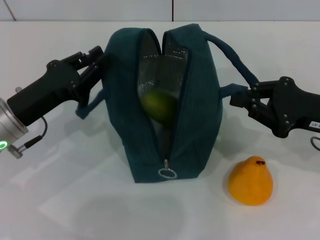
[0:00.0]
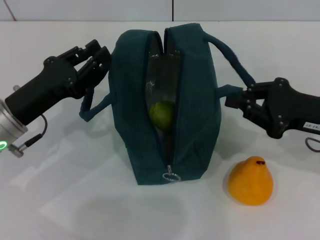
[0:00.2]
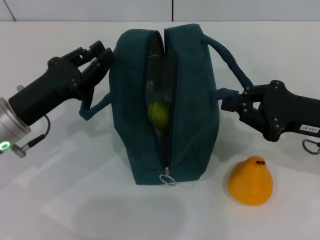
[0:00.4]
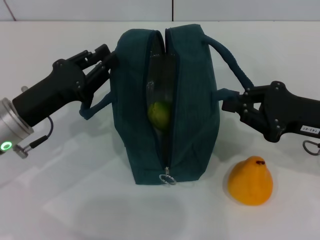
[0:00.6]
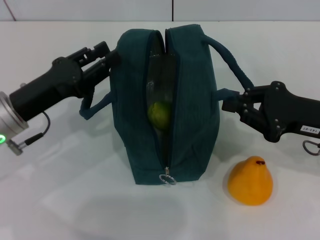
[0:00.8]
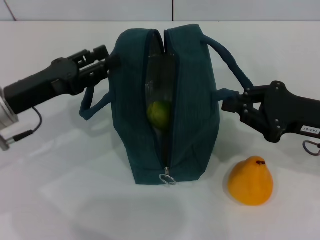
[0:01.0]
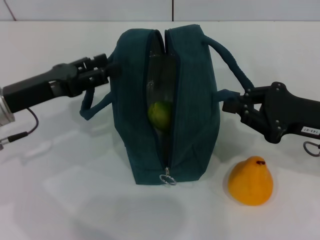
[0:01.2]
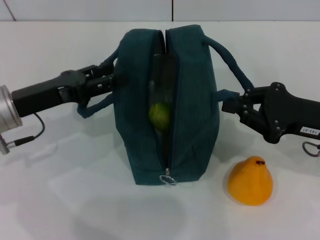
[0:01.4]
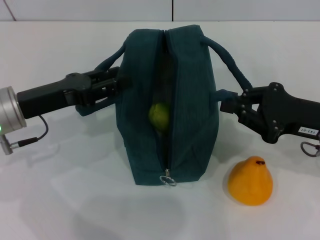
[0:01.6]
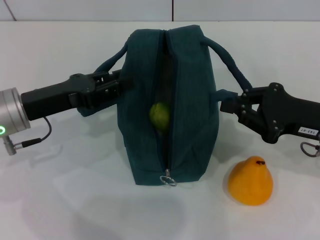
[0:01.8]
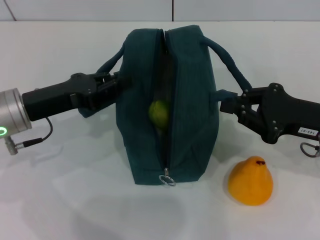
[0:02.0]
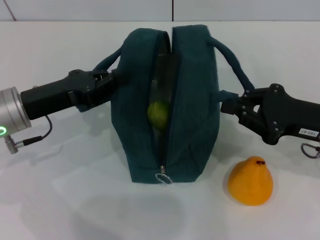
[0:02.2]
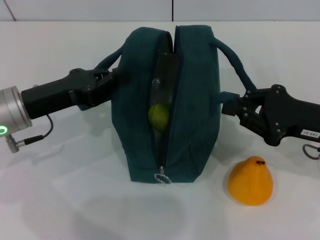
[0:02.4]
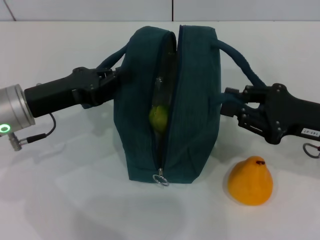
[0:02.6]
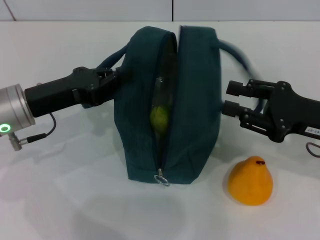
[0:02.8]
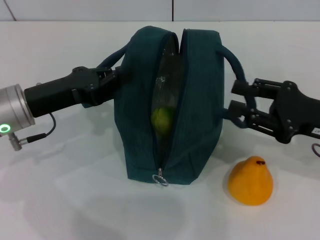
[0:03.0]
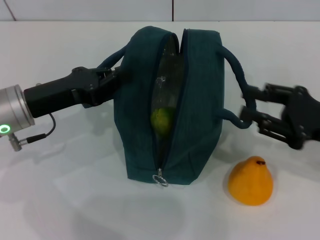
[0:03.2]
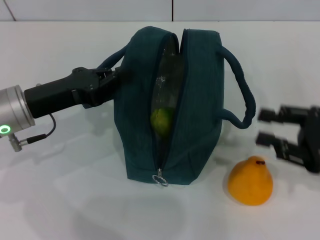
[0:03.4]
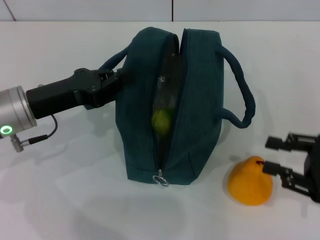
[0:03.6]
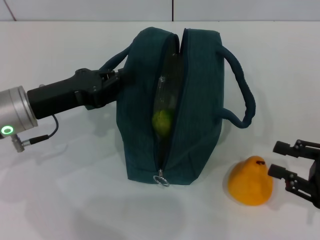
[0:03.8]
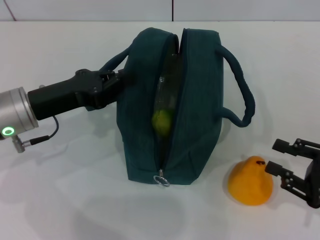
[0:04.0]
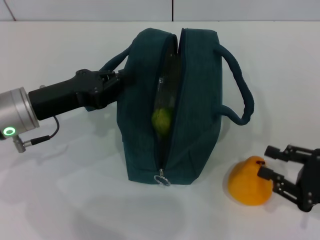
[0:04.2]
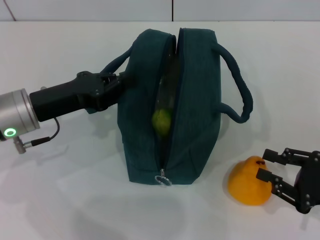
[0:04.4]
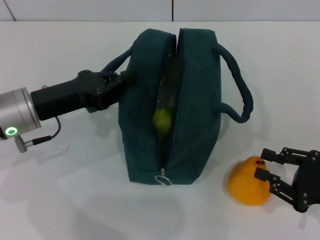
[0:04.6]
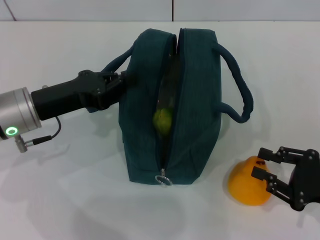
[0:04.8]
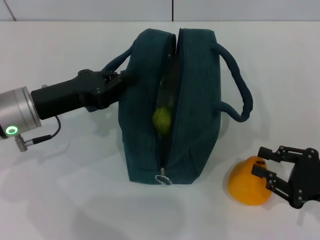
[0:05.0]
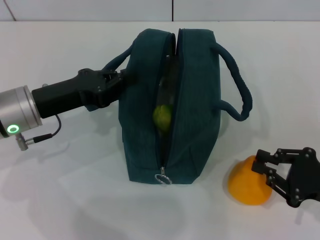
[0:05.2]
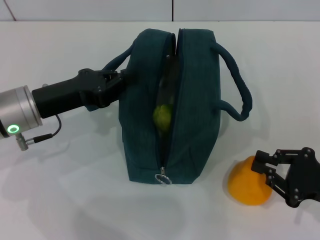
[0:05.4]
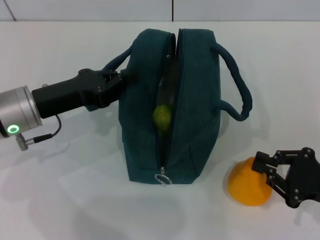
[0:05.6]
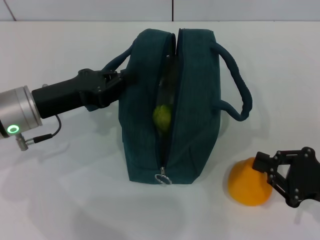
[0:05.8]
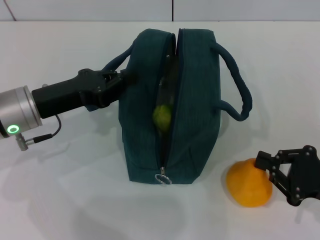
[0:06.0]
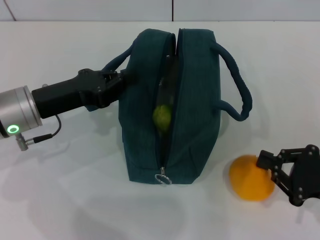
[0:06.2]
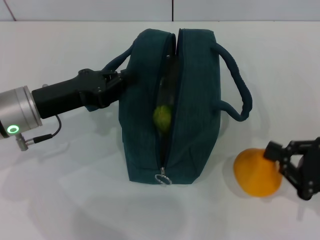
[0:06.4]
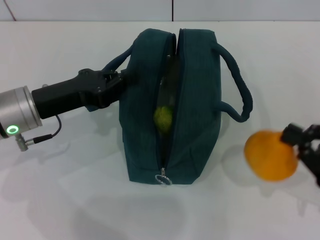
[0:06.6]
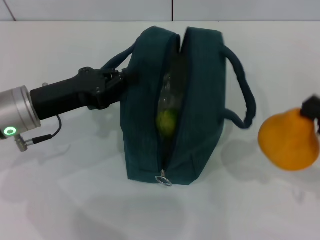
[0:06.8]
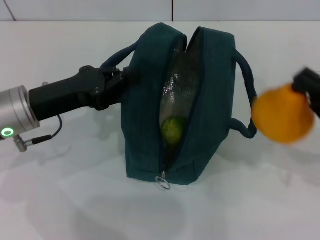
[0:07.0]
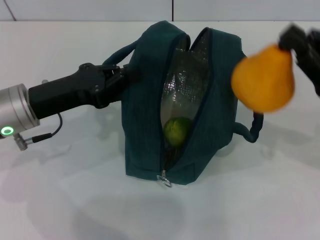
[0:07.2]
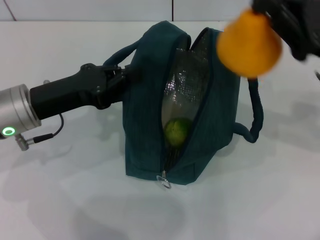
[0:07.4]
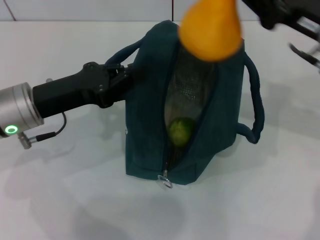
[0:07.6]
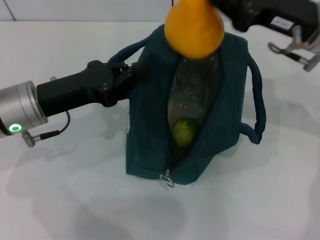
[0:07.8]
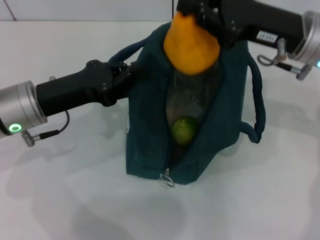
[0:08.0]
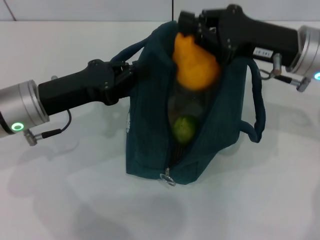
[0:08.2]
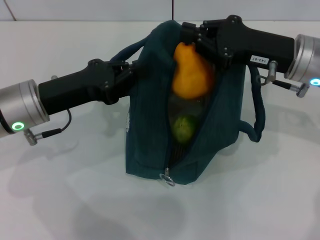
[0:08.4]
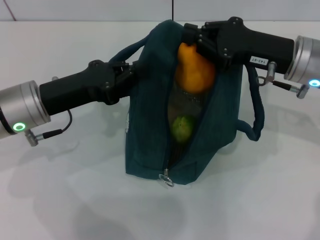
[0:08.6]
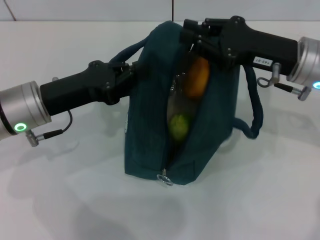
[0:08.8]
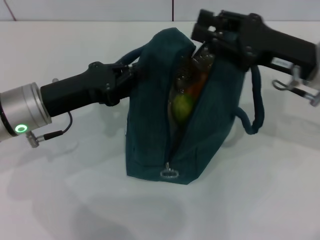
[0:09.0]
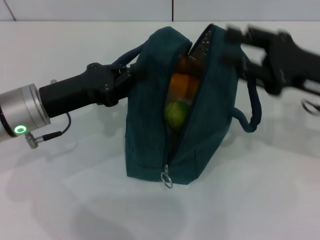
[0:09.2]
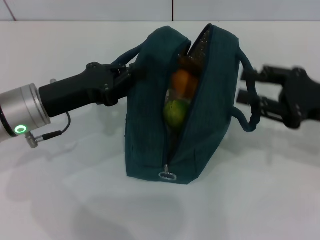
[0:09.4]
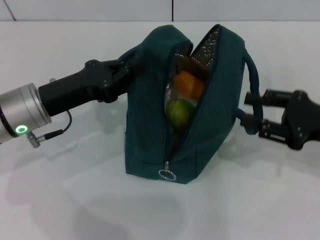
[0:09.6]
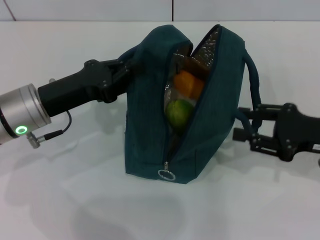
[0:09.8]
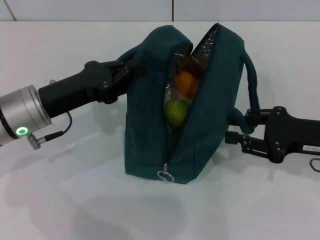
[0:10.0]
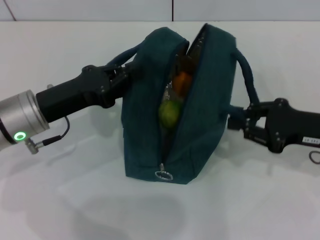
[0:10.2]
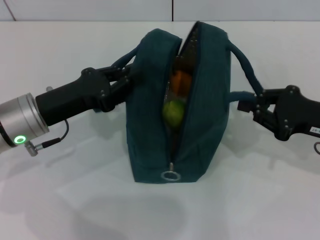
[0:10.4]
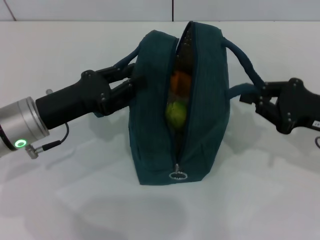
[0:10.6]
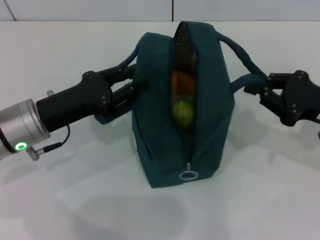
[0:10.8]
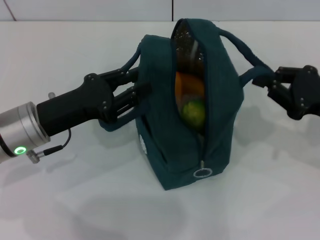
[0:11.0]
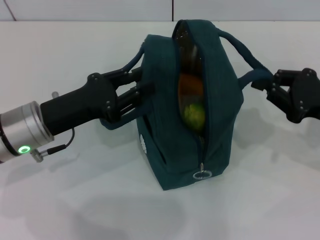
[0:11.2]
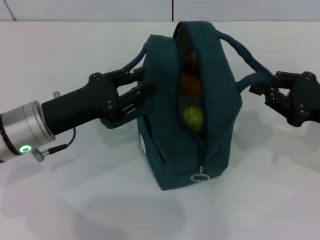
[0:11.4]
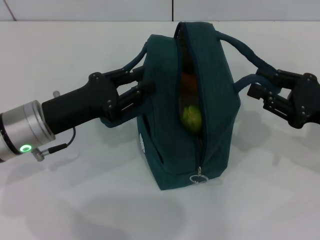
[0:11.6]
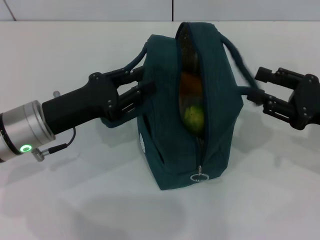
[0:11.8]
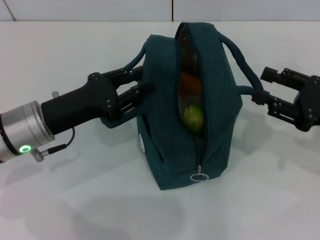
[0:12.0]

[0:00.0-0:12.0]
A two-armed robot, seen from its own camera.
Step, 0:00.0 to 0:05.6: Grab the pear with your right hand.
Step, 0:09.2 to 0:11.8: Hold the lunch bag with your right hand.
0:00.0 to 0:01.6: The left gripper opens.
0:01.6 to 0:03.0: The left gripper closes.
0:03.0 to 0:04.4: The right gripper goes roughly 10 cm backward and downward.
0:04.4 to 0:06.0: The right gripper closes its fingers.
0:06.0 to 0:07.6: The right gripper goes approximately 20 cm upward, forward and to the left.
0:07.6 to 0:09.0: There are only small adjustments of the grippers.
0:09.0 to 0:10.4: The right gripper heads to the right, downward and backward, covering some 10 cm.
0:10.4 to 0:12.0: The grippers make only small movements.

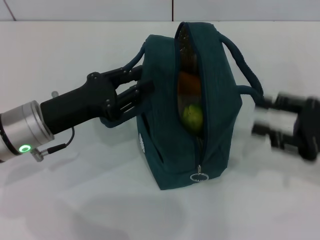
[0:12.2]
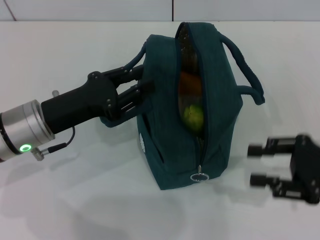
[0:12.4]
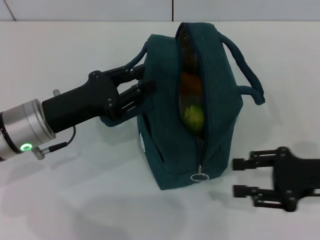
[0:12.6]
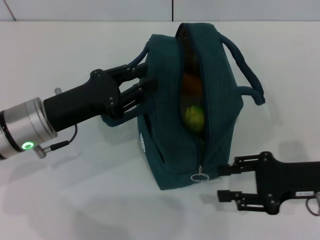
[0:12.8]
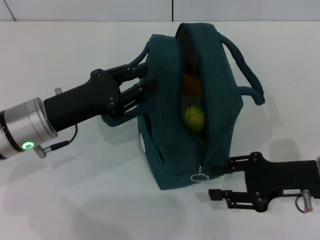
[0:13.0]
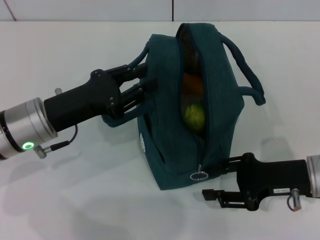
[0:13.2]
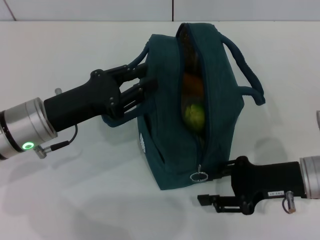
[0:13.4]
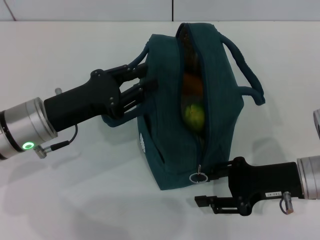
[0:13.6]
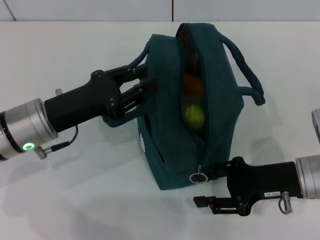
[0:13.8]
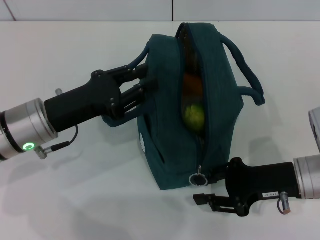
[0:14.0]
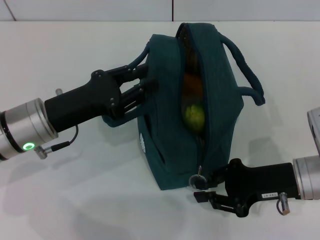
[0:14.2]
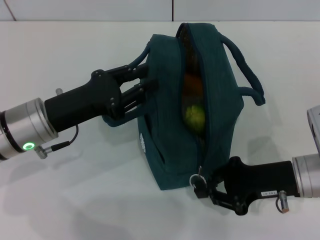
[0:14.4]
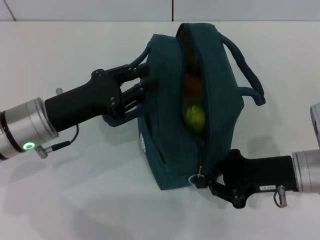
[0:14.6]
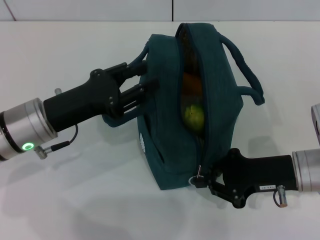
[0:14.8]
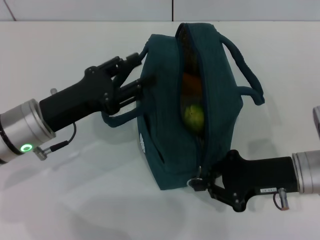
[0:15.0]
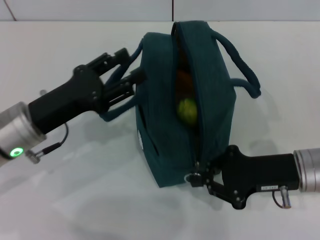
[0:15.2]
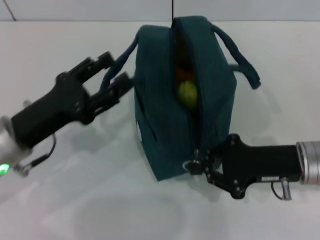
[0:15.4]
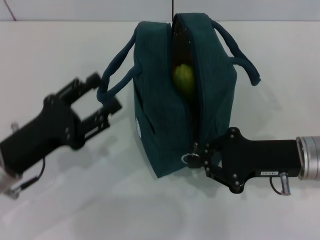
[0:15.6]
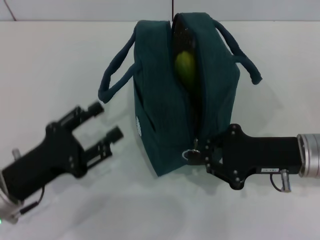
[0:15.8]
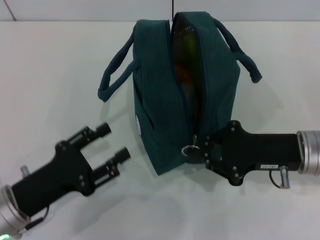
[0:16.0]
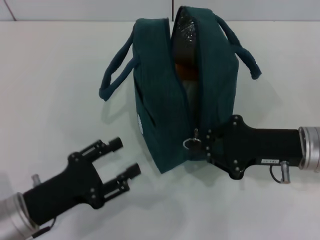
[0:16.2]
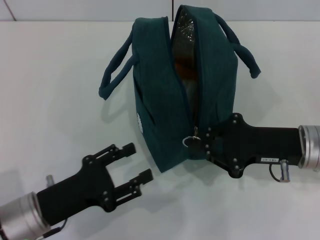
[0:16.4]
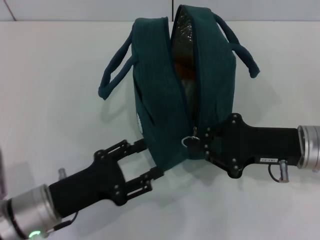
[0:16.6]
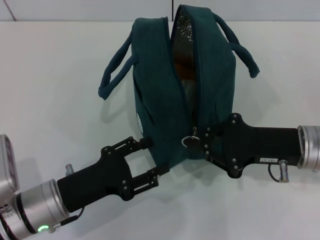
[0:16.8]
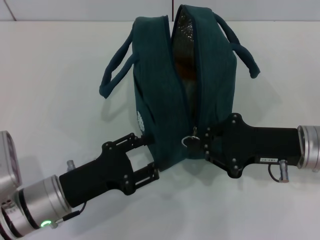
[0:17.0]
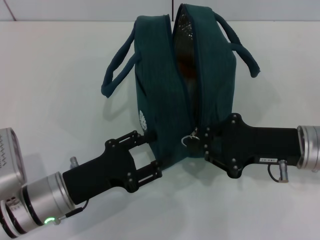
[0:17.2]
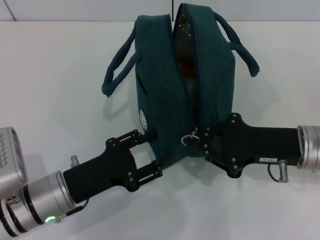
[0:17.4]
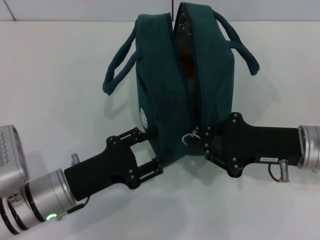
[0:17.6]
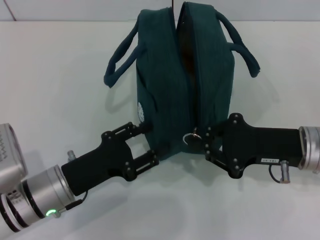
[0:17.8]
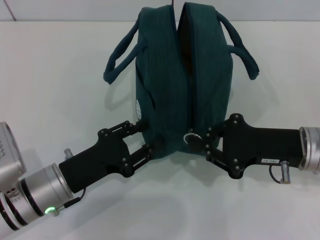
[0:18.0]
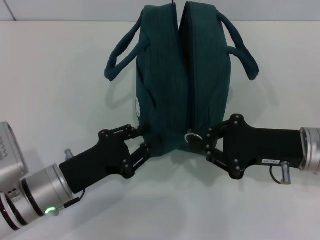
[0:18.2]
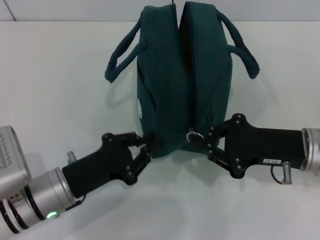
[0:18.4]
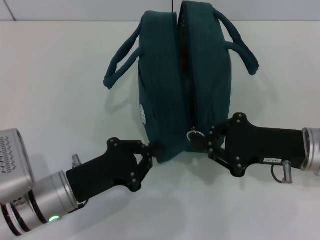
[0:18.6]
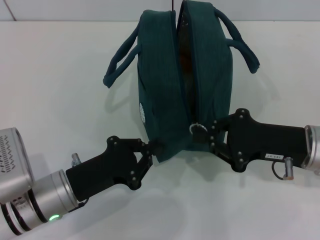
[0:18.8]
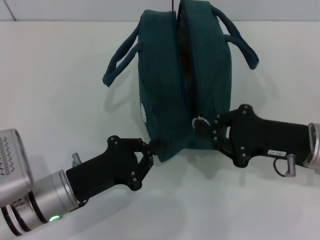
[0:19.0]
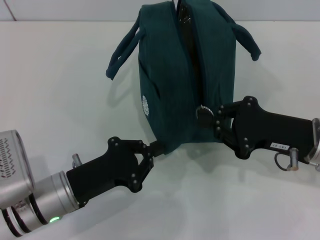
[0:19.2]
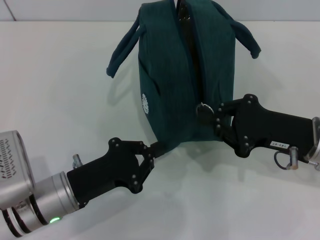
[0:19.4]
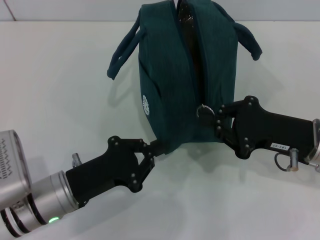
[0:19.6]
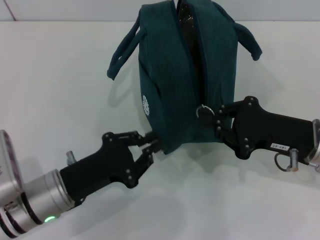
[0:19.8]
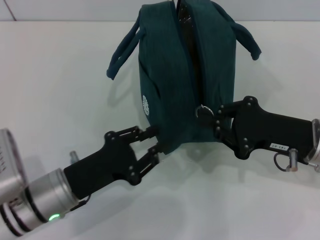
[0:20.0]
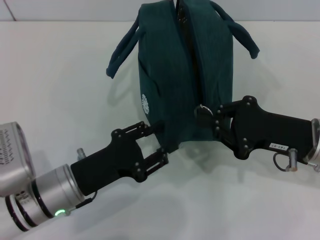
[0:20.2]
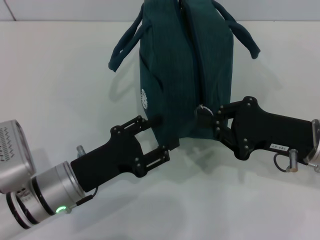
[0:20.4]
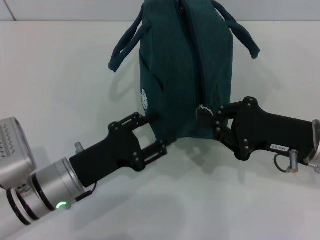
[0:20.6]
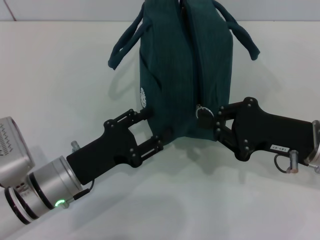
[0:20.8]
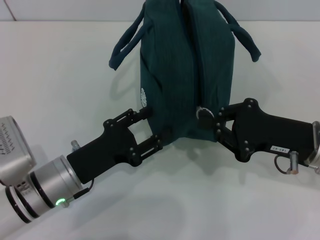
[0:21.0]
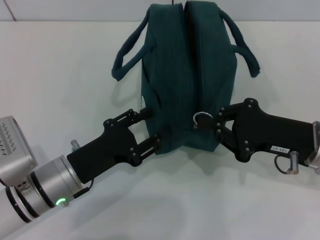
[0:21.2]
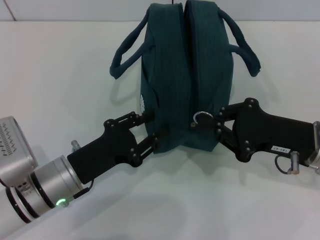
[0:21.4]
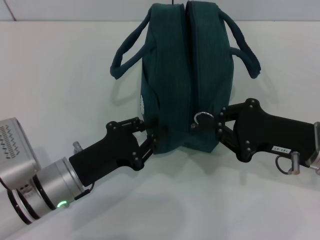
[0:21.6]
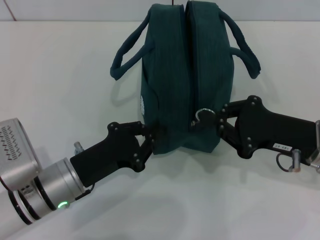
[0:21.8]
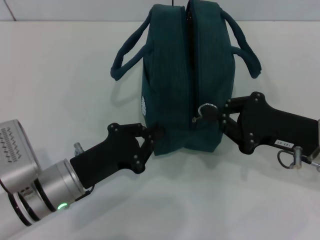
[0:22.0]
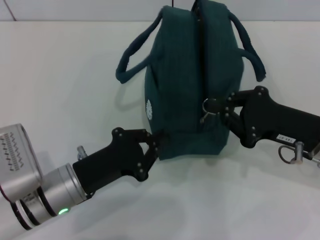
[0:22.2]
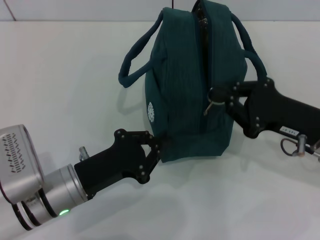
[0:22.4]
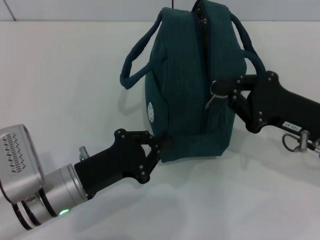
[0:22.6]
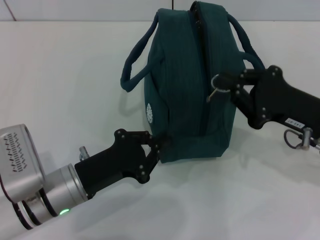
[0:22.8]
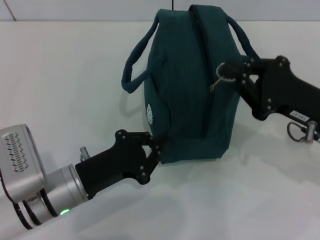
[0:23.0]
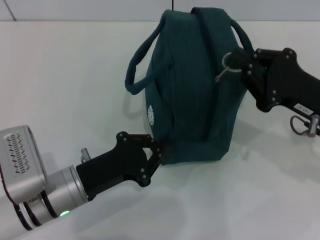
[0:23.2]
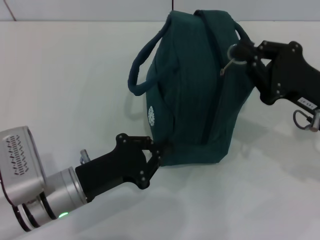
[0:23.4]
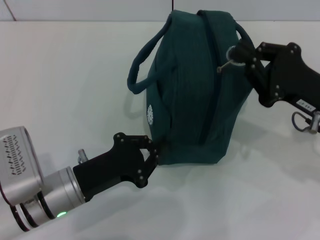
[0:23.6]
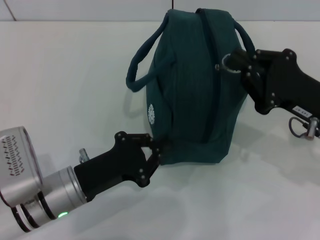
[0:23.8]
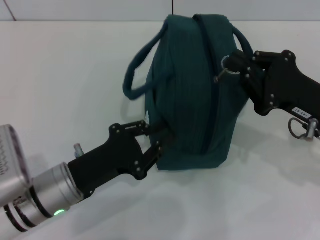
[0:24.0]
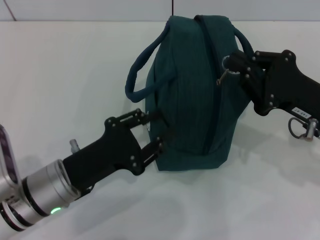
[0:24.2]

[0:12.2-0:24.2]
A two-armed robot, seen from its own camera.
Step, 0:12.2 to 0:15.2: Hold the lunch bag with your left hand.
0:12.2 to 0:13.8: The right gripper moves to the left, roughly 10 cm.
0:13.8 to 0:15.2: The right gripper closes.
0:15.2 to 0:16.6: The left gripper is displaced backward and downward by approximately 10 cm.
0:18.2 to 0:19.8: The left gripper closes.
0:19.8 to 0:21.2: The left gripper opens its fingers.
0:21.2 to 0:22.6: The left gripper closes.
0:22.6 to 0:24.2: The left gripper opens its fingers.
